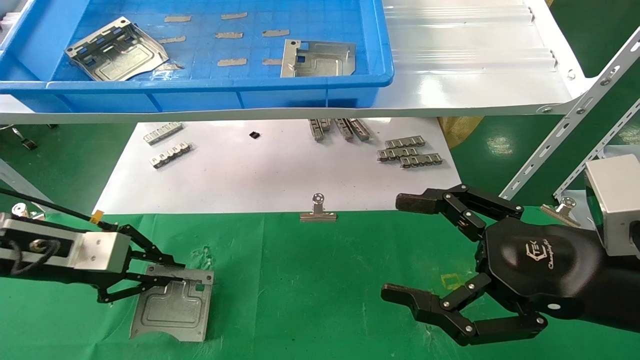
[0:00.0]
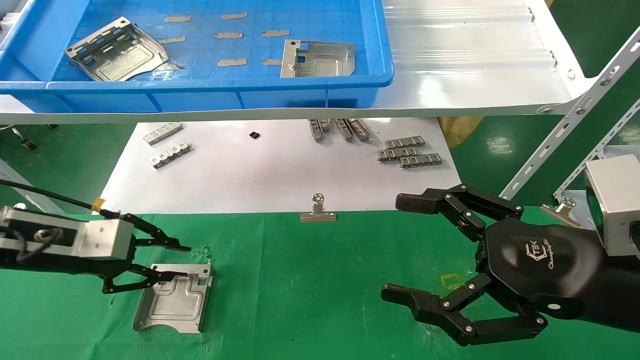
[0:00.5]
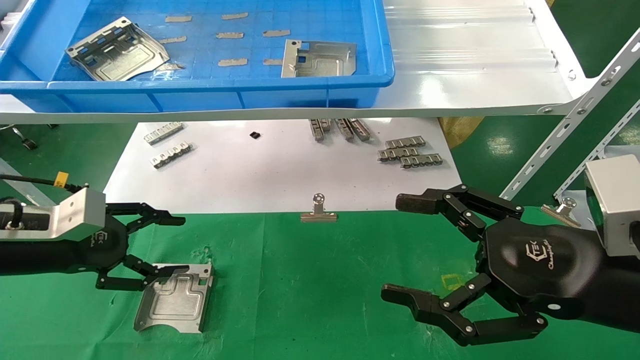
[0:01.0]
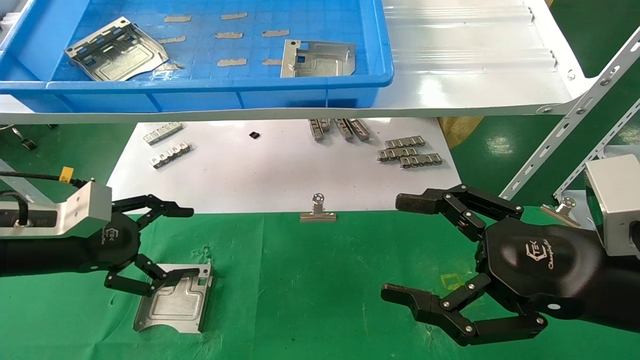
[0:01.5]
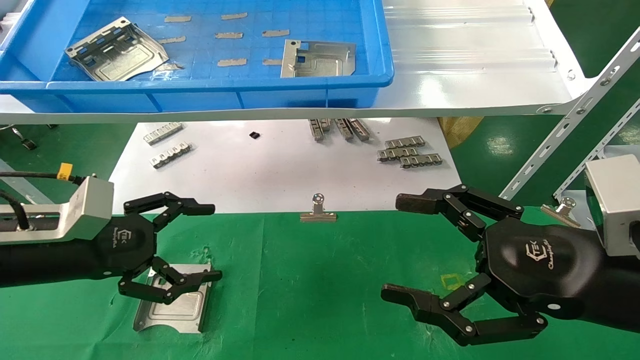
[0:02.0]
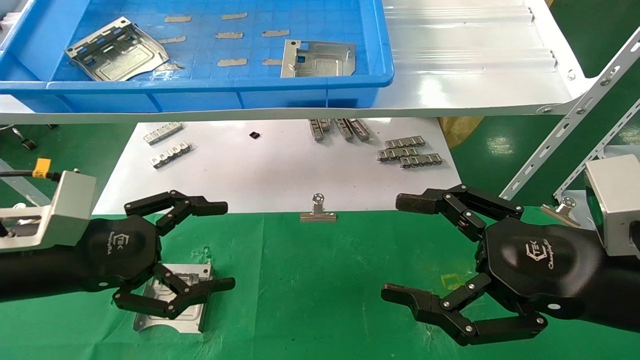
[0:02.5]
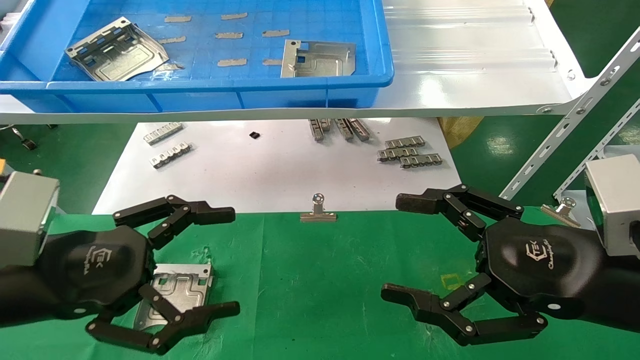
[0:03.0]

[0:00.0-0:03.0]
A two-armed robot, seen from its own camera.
Task of the whole recording: use the mechanical arm to pick up the parts and place them on the table.
0:00.0 to 0:01.5: The left gripper opens up.
0:01.5 to 0:03.0: The left gripper goes about 10 cm backward and to the right.
